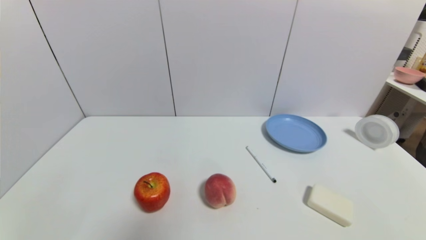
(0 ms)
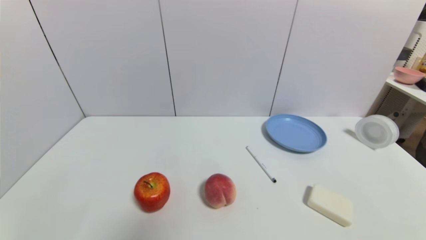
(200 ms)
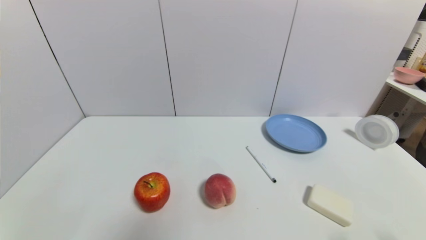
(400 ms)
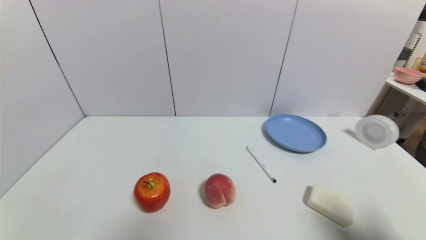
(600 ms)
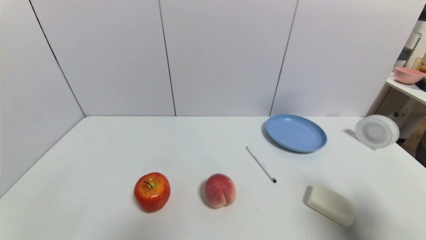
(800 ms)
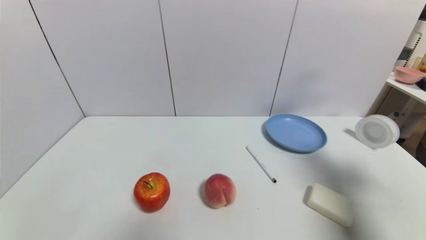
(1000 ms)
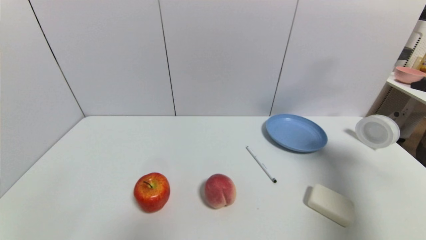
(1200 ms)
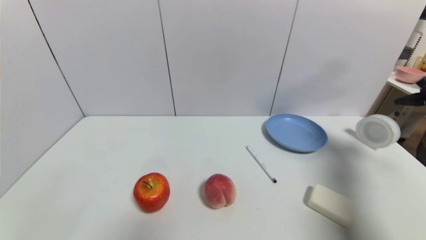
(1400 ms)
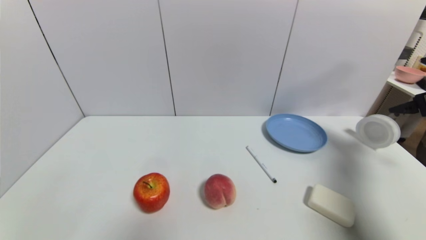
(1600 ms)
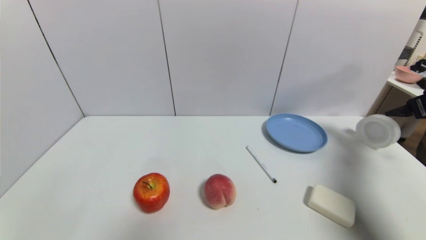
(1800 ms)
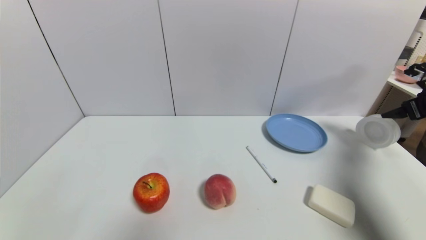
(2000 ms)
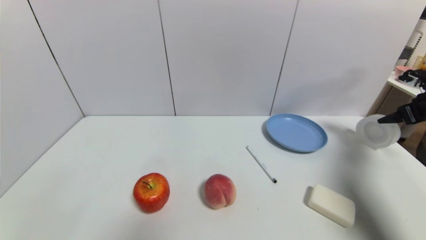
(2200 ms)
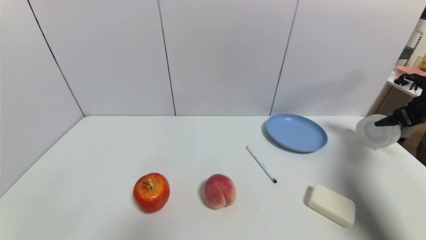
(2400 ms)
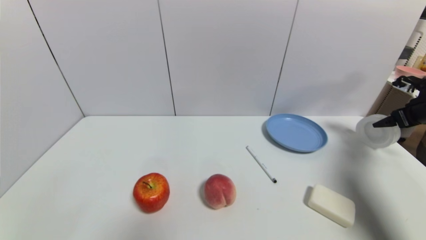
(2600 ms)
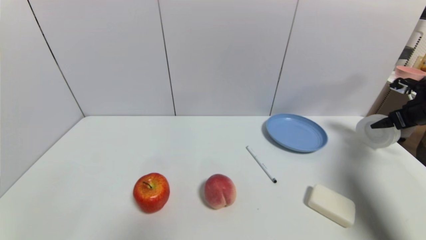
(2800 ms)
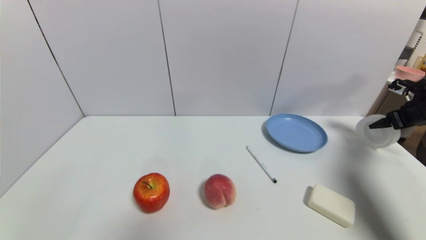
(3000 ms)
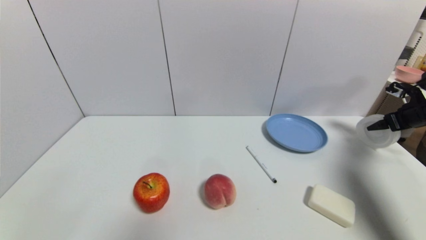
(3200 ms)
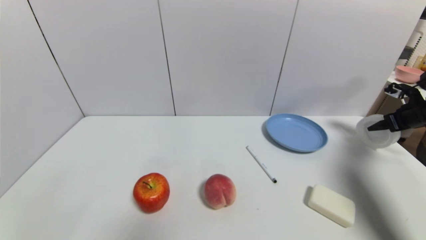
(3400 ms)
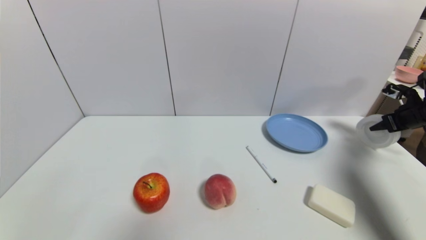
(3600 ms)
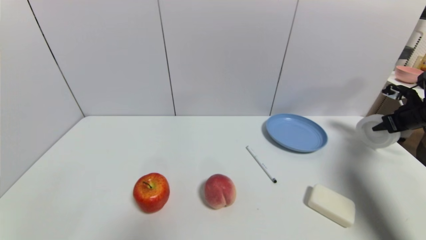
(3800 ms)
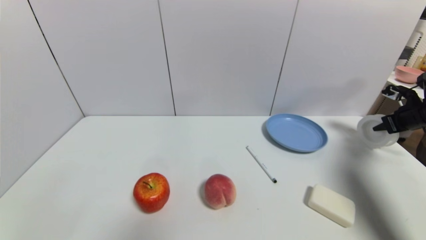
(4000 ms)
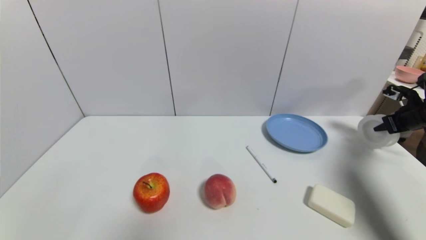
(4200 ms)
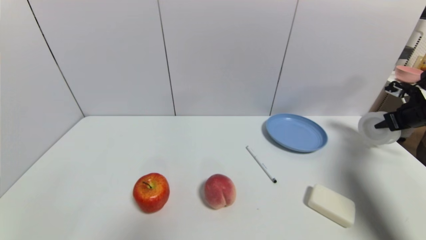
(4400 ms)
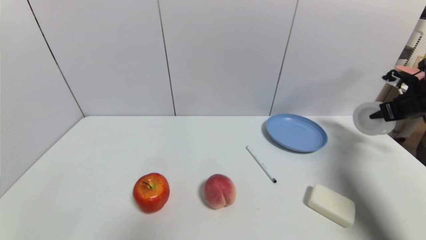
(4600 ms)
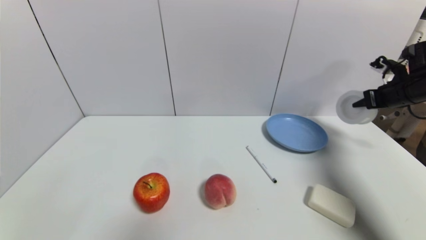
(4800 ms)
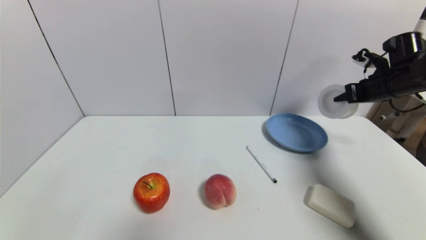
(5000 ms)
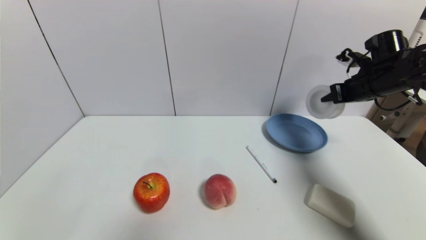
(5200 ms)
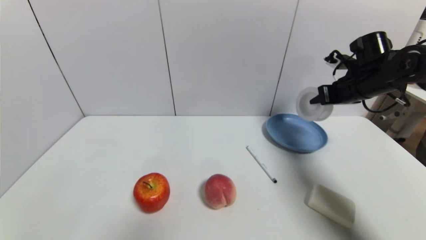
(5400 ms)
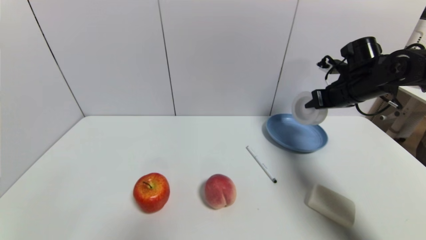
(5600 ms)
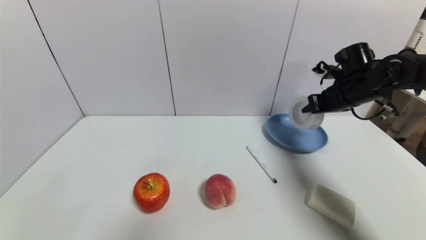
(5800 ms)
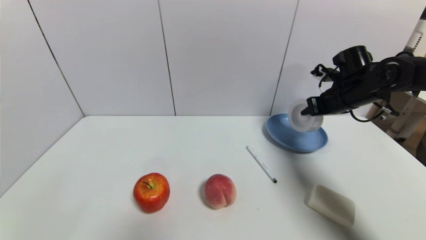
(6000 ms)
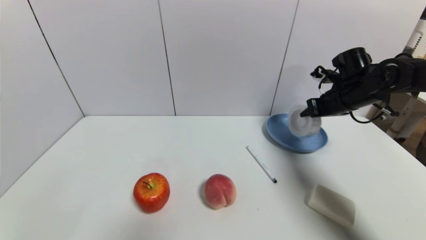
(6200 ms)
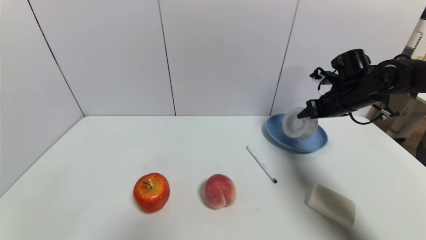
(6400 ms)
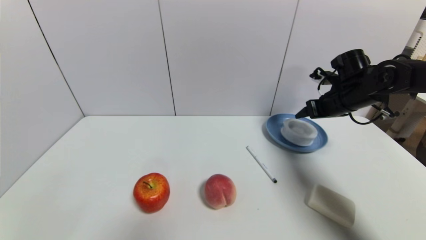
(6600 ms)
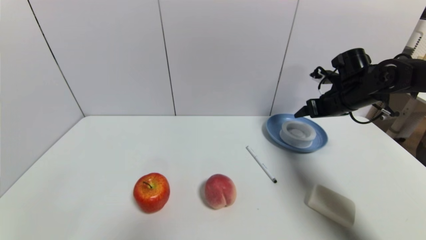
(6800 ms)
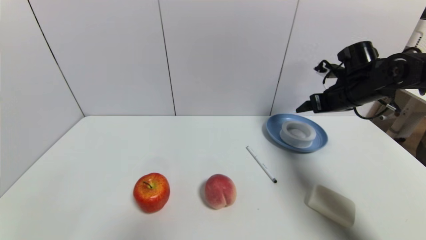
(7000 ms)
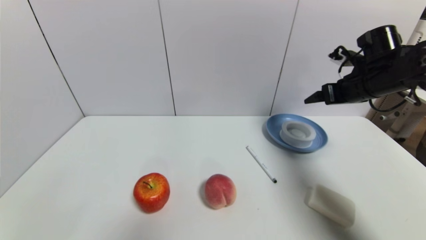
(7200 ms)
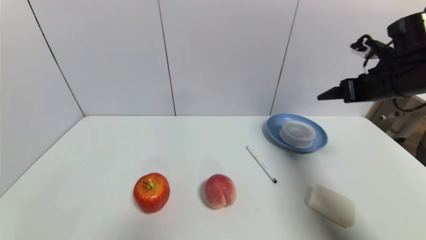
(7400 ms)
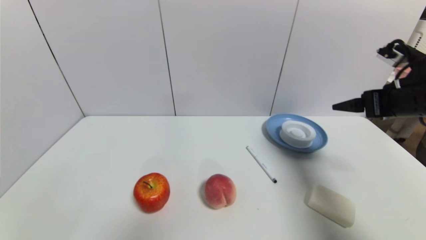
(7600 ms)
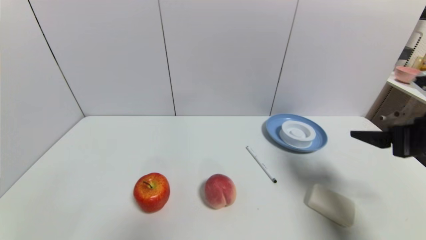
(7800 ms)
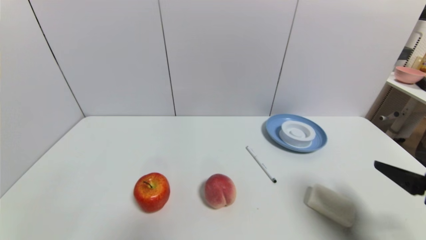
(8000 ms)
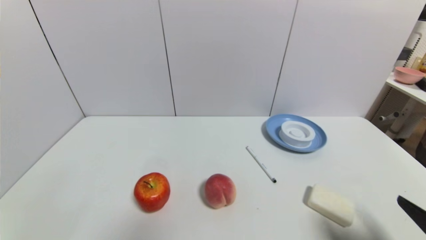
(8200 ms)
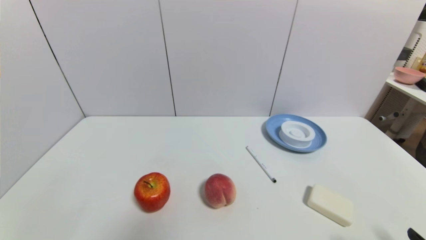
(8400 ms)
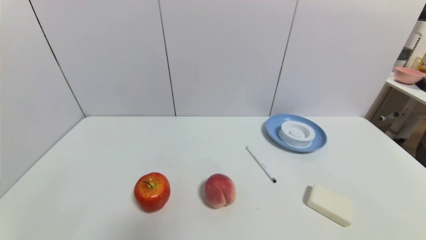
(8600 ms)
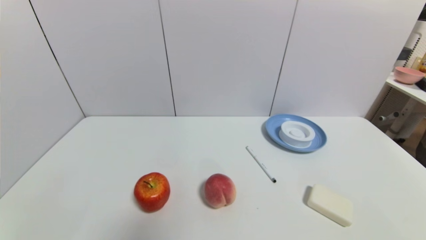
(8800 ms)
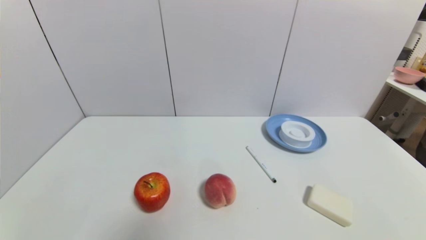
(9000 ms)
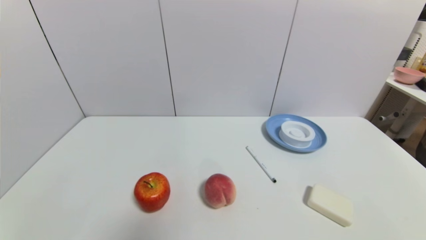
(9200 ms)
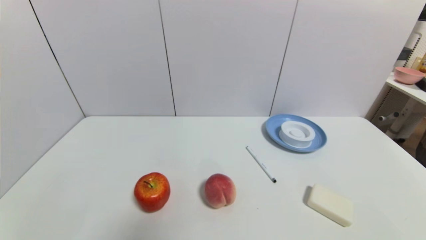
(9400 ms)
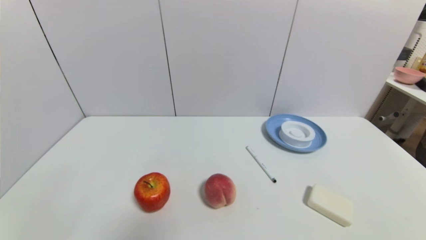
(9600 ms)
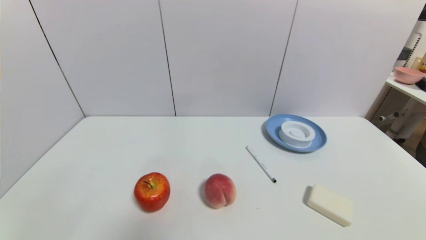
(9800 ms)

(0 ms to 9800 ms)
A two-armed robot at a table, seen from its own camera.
Task of the whole recording: use a gripper to pick the target object and place on the blue plate.
Step, 0 ms - 3800 ms: Grasp the tape with the right gripper.
Step, 4000 ms - 6400 ms: Place the tape on the blue plate with the right gripper.
0 ms - 1400 ms: The right gripper shifts some 35 cm forward and upward.
1400 ms - 2800 ms: The right gripper shifts roughly 15 cm forward, downward and to the right.
2800 ms - 4200 ms: The right gripper closes up.
4200 ms - 5600 ms: The right gripper shifts roughly 20 cm to the left.
5600 ms - 7000 ms: The right gripper opens up.
7000 ms - 8400 ms: The right gripper travels backward by roughly 40 cm.
